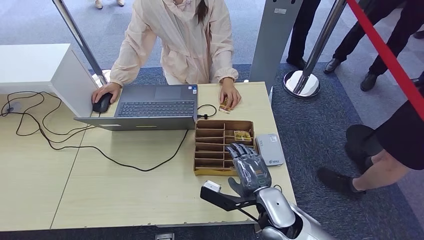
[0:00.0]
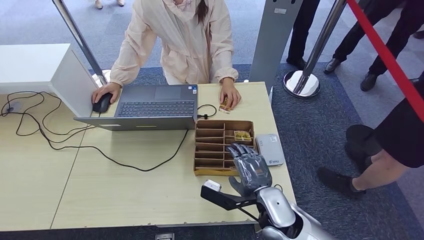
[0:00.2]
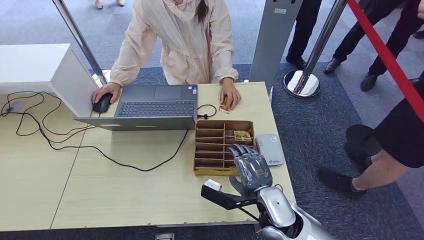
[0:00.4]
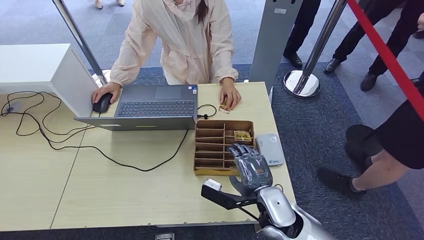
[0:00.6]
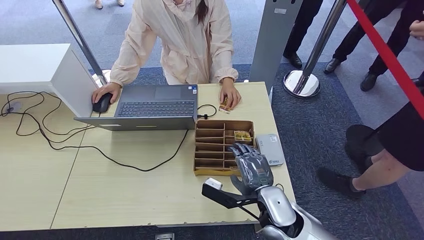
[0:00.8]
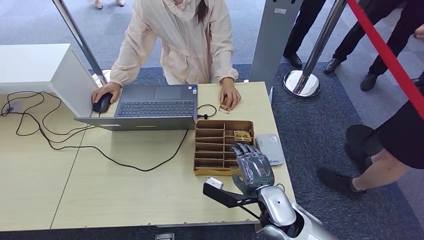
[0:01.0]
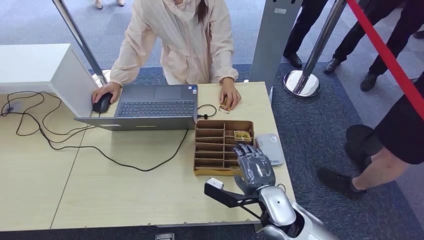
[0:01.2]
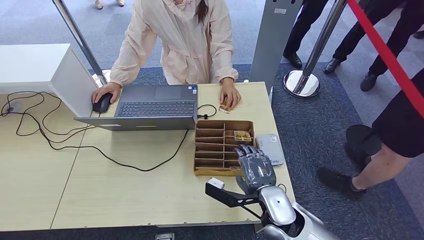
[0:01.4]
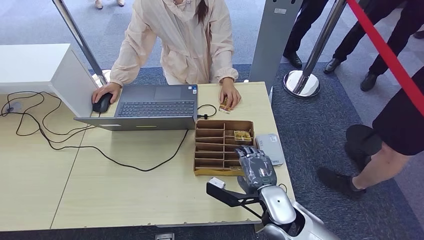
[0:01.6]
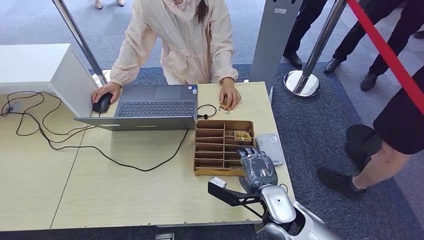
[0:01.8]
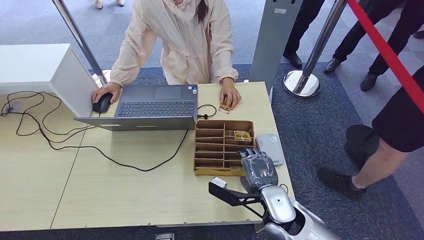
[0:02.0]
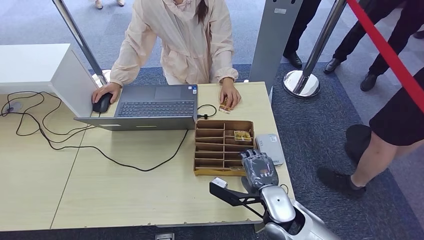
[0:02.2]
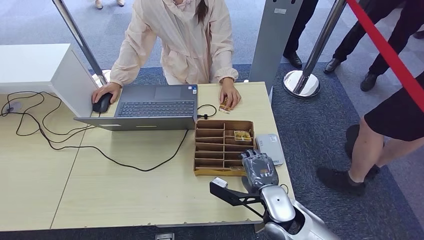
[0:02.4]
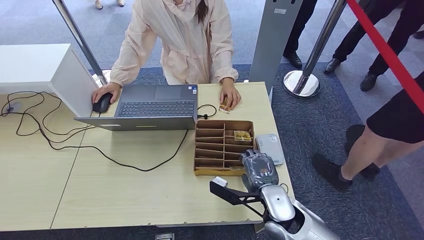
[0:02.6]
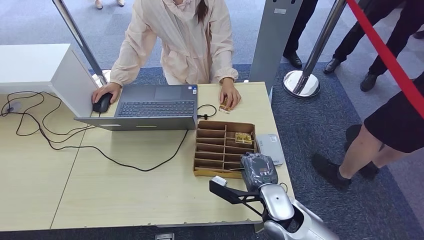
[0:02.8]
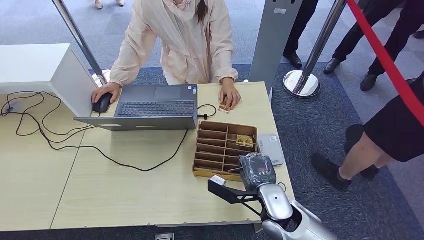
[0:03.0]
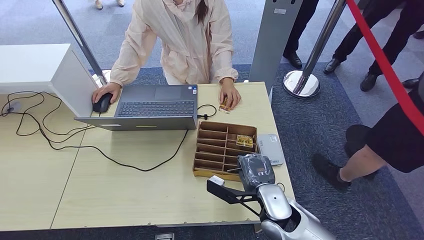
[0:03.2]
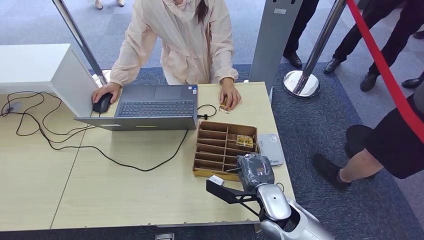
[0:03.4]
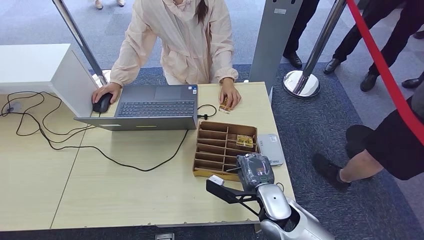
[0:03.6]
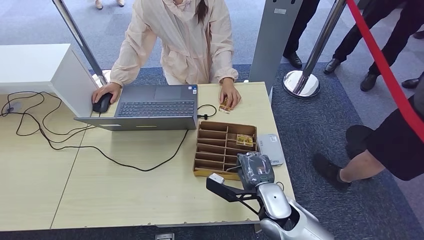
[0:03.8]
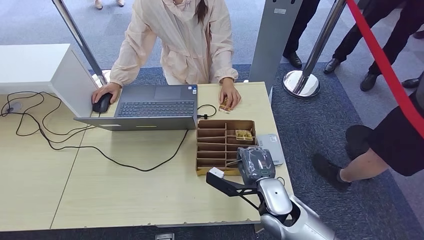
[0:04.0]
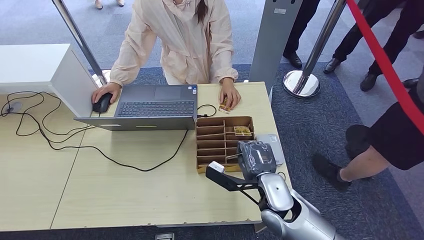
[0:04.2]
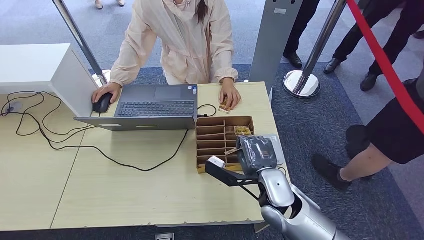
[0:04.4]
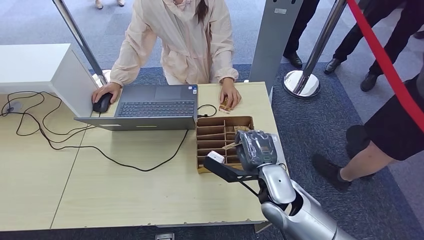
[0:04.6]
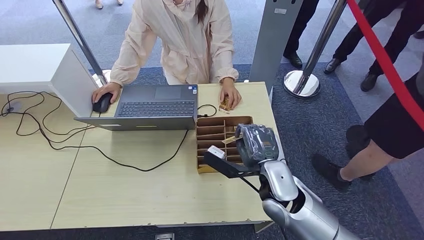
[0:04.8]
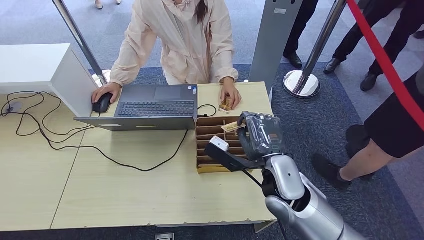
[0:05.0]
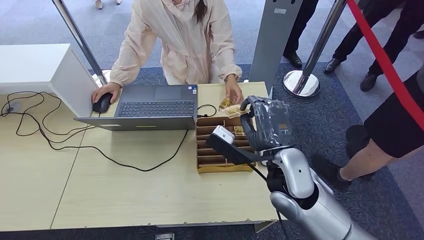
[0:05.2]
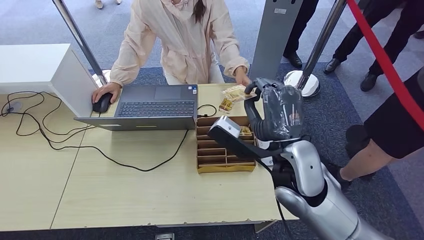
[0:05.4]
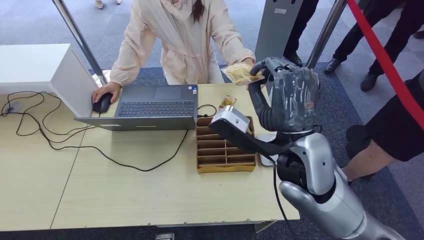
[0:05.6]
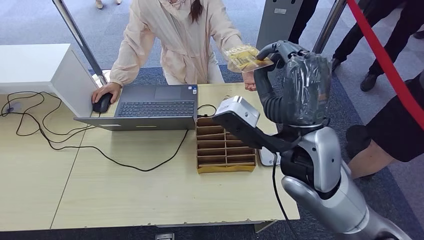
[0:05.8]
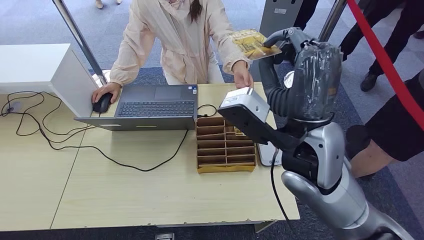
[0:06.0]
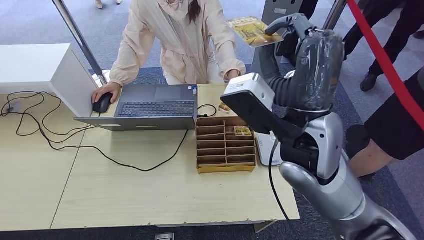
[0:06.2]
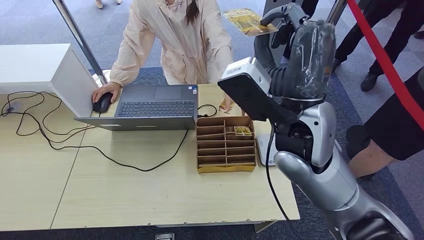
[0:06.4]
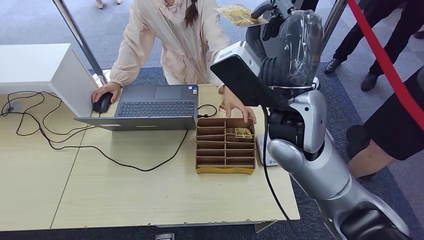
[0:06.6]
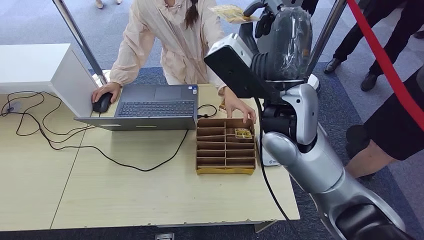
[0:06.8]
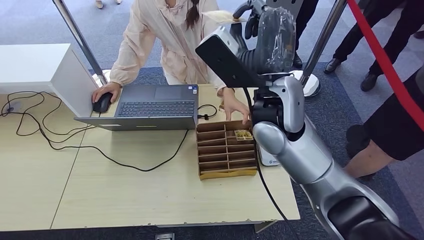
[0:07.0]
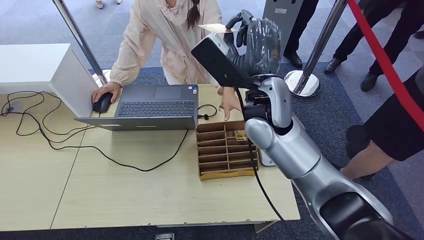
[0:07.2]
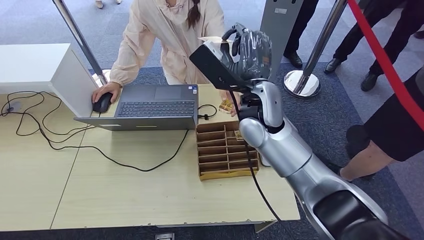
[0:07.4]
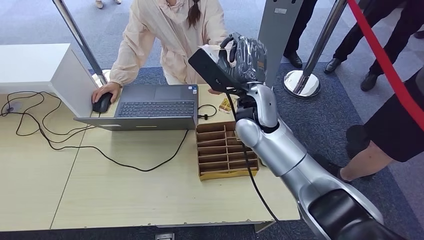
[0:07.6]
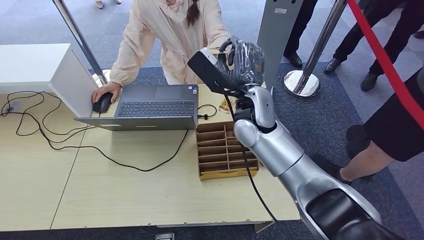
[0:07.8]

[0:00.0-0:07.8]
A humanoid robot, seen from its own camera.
Step, 0:00.0 to 0:04.8: Pick up the room key from the key card box.
Step, 0:05.2 to 0:07.8: Hand the room key to the person.
0:00.0 to 0:03.2: The hands make only small movements.
0:03.2 to 0:04.6: The right hand travels upward by approximately 5 cm.
